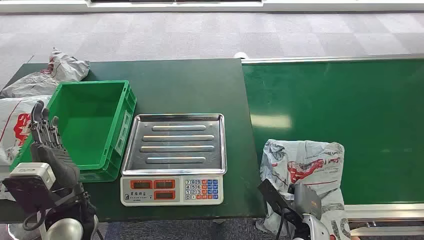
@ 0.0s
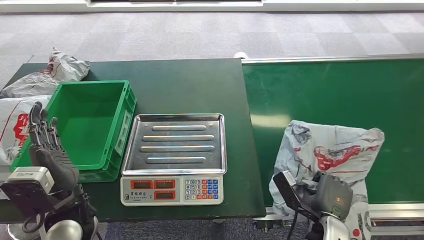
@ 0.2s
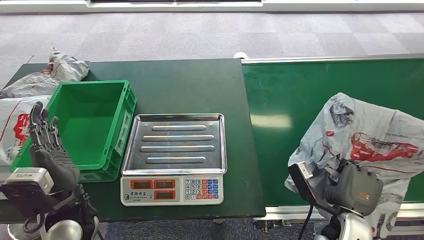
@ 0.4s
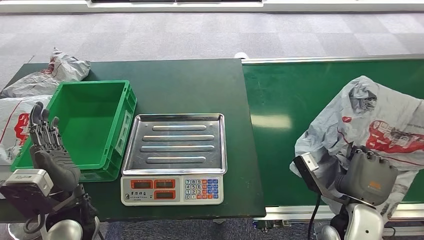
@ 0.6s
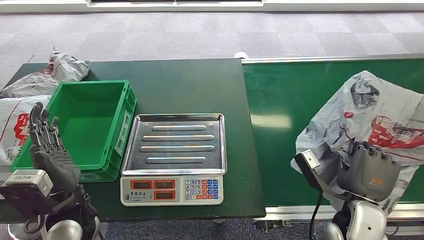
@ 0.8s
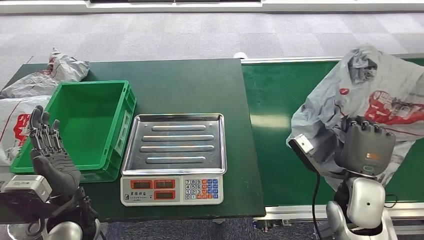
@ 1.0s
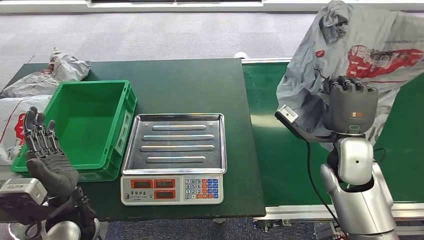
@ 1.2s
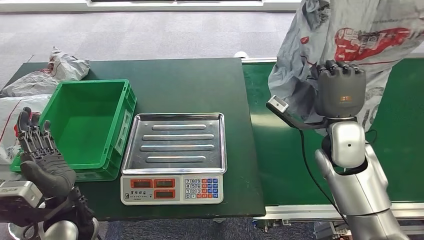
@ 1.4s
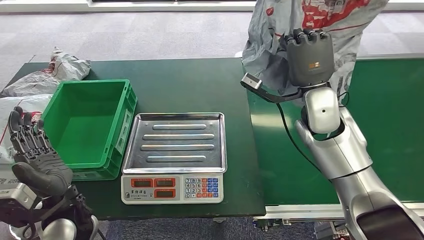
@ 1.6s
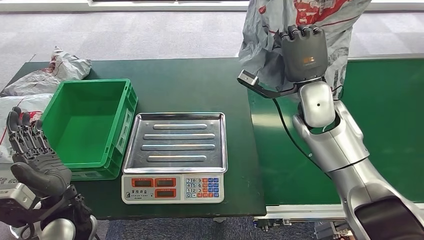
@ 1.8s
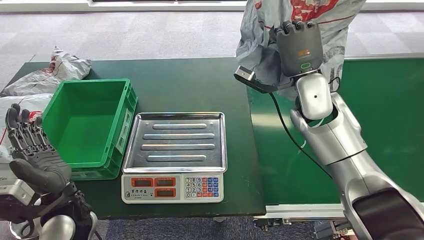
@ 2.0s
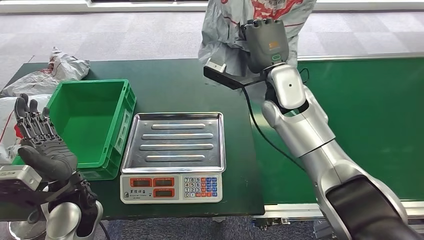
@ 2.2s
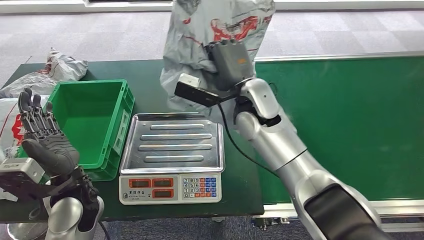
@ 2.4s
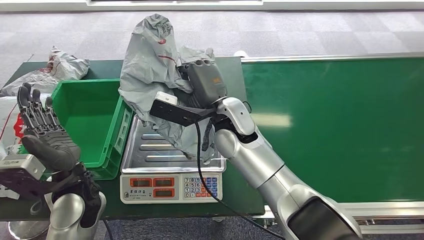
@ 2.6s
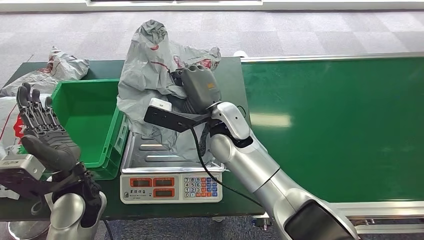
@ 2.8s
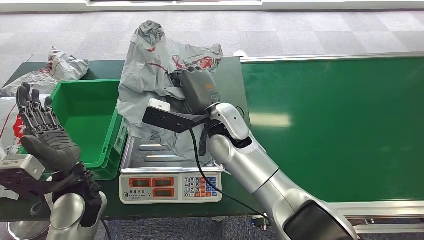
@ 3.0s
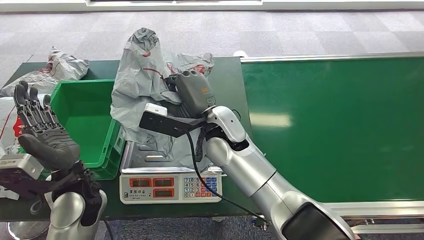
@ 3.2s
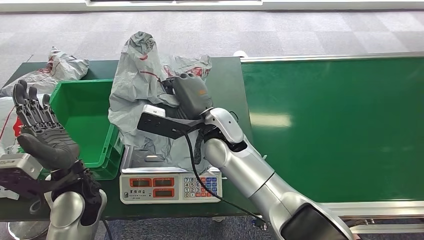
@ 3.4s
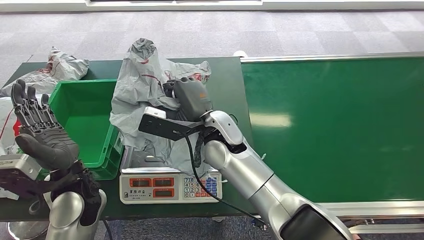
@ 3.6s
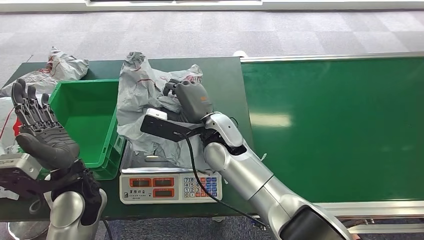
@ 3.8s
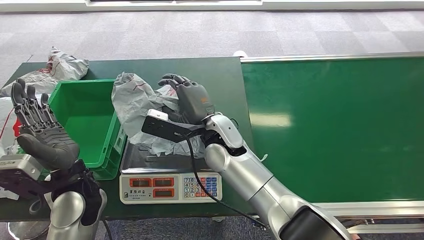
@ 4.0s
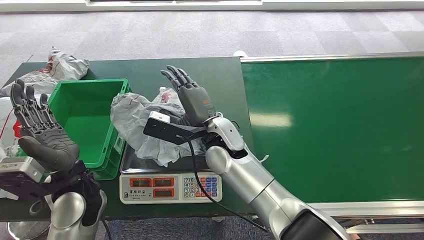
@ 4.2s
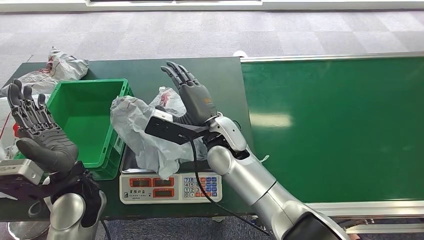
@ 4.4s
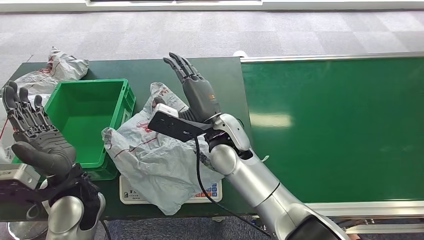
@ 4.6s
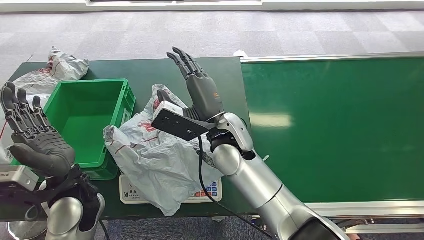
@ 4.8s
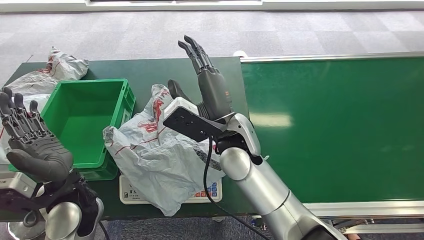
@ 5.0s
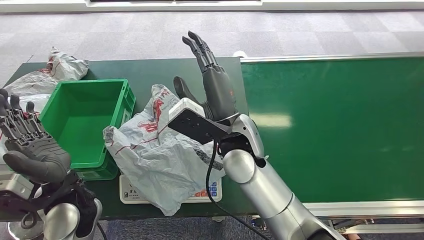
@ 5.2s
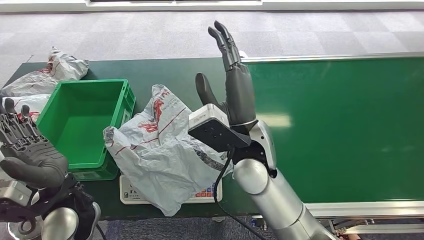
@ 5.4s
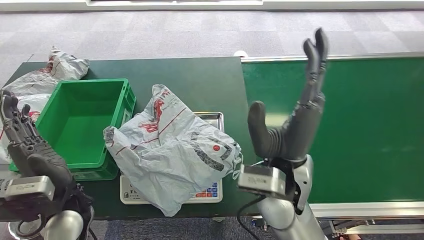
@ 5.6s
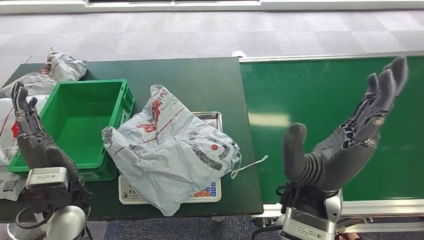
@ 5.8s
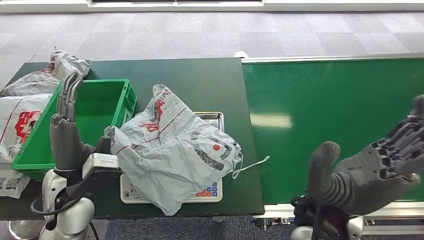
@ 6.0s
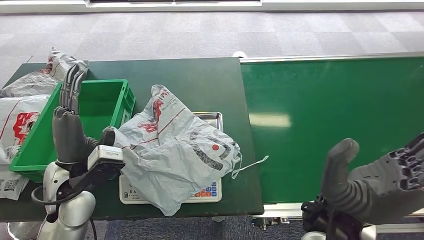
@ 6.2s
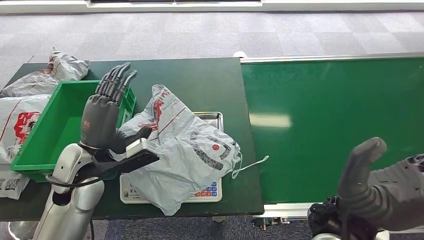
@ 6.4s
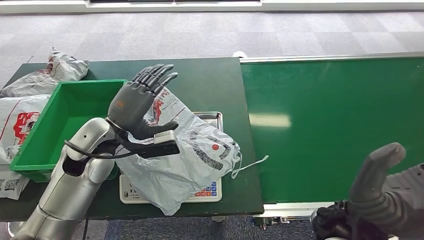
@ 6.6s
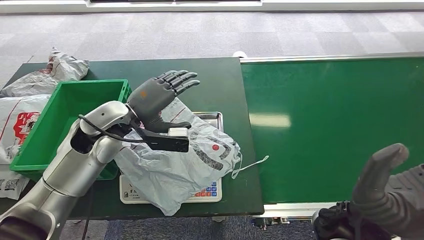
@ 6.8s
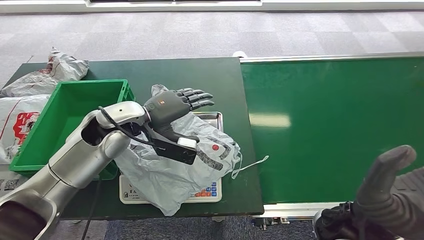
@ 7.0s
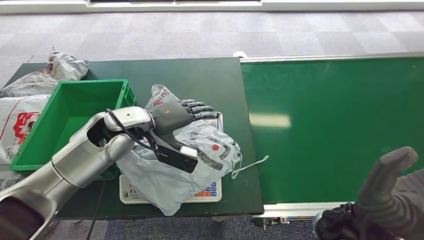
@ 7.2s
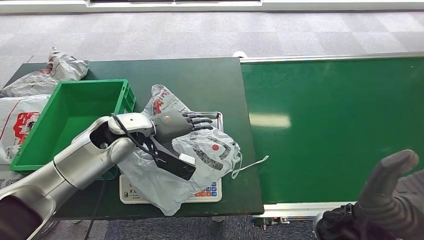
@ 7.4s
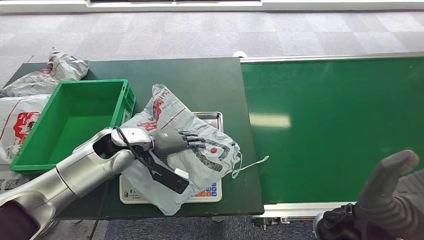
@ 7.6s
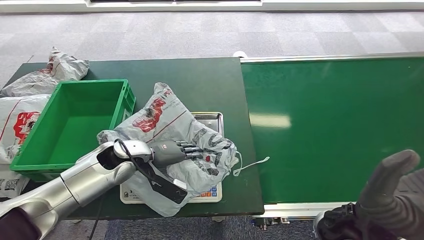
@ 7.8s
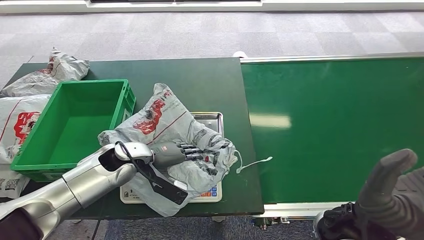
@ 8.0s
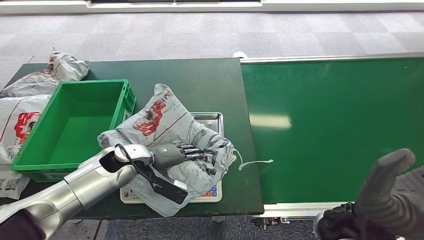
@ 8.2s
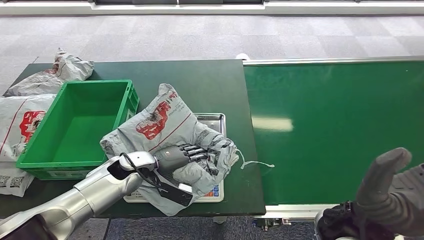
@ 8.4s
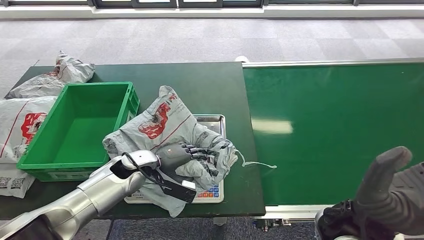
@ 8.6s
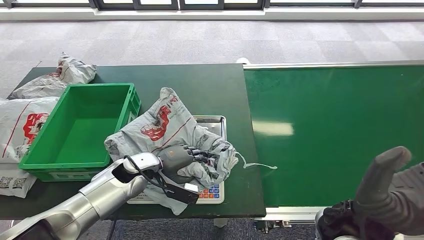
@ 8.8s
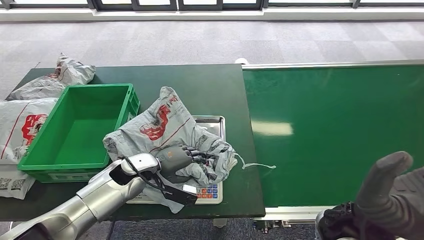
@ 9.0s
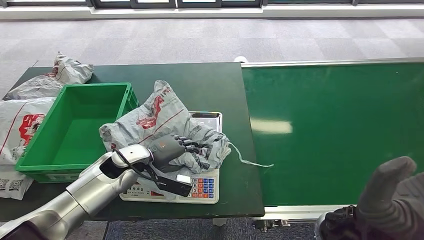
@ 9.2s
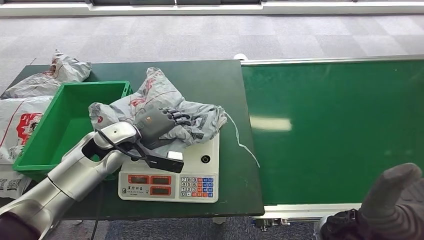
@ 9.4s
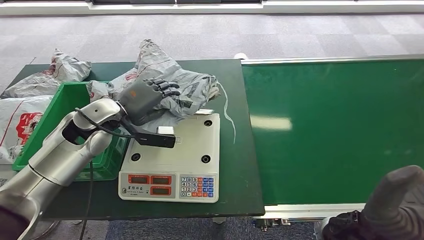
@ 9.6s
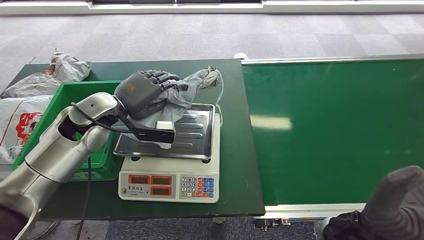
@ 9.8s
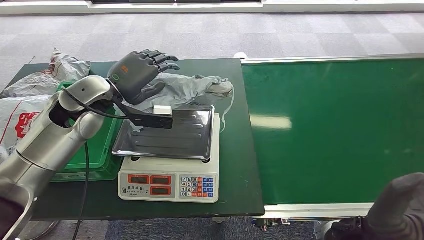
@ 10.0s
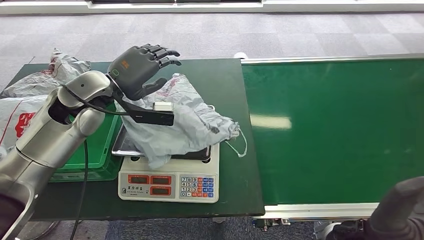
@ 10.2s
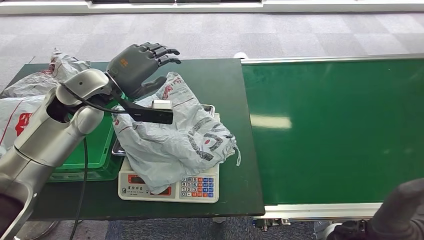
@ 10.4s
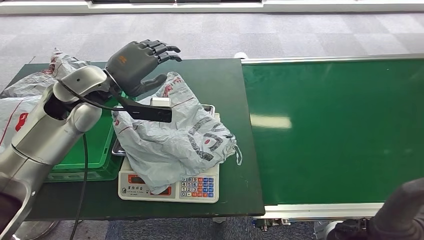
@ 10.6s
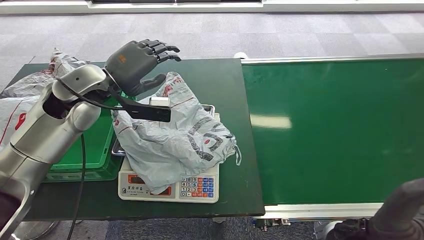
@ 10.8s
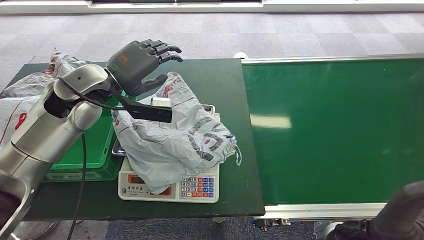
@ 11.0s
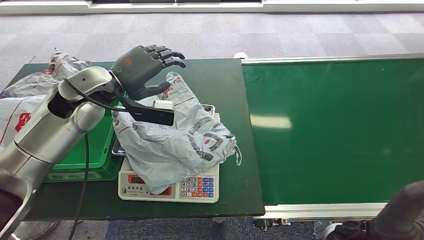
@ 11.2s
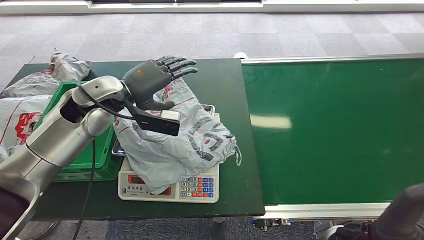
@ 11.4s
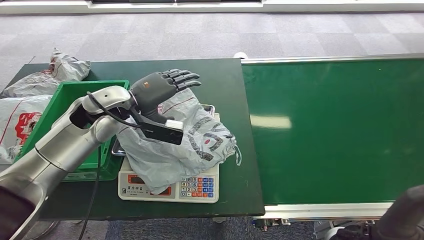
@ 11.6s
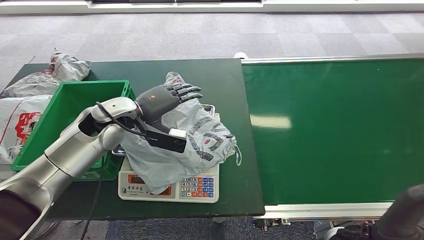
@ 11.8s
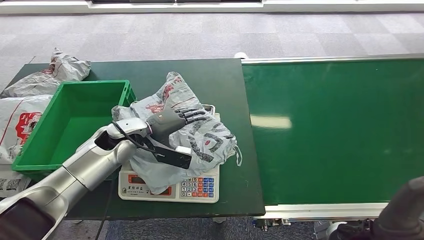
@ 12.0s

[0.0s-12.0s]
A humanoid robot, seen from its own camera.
Step, 0.0s to 1.0s: Pick up the package from the conveyor belt.
Step, 1.2s to 5.8s: Place the package onto the inbound machine.
3.0s to 4.4s: The hands make only small movements.
6.0s to 7.6s: The right hand moves about 5 cm, while the left hand heads forward and to the right, covering roughly 15 cm.
10.4s to 12.0s: The left hand is displaced downward by about 15 cm.

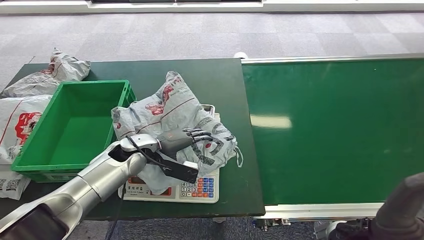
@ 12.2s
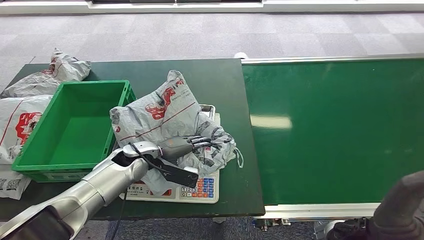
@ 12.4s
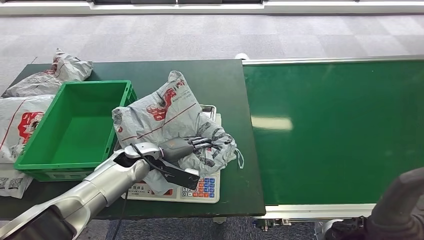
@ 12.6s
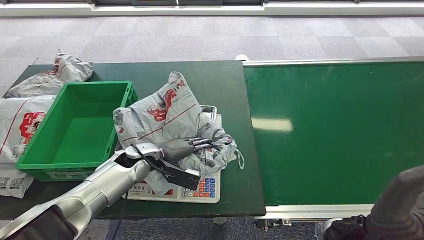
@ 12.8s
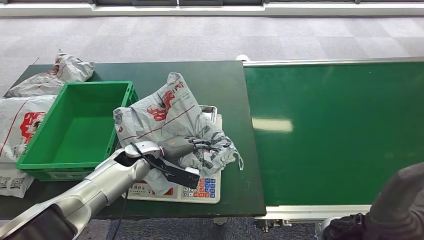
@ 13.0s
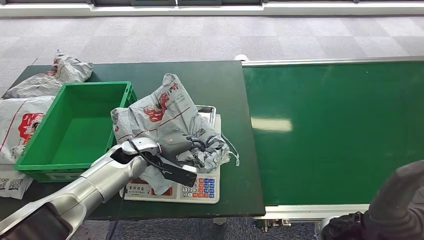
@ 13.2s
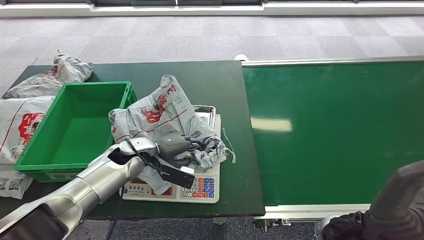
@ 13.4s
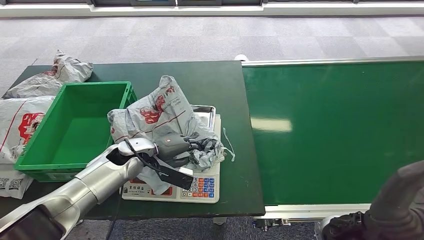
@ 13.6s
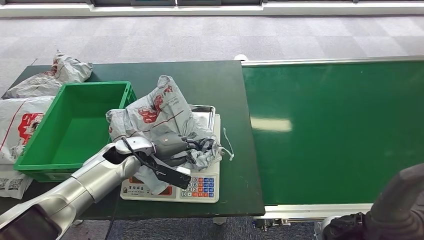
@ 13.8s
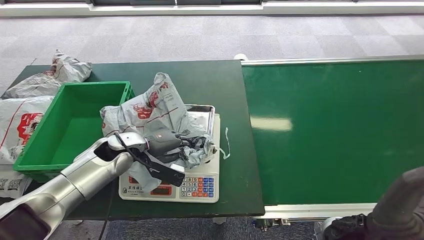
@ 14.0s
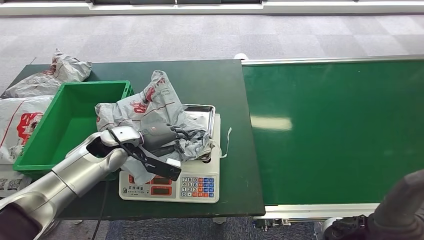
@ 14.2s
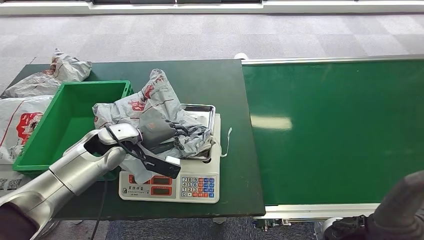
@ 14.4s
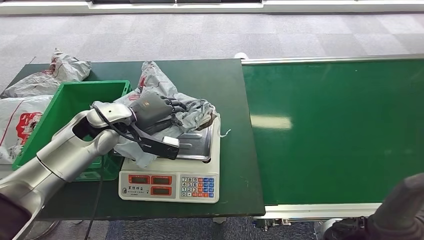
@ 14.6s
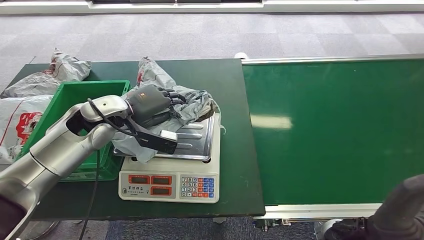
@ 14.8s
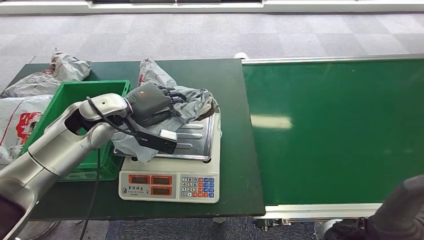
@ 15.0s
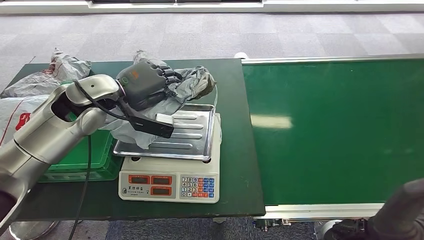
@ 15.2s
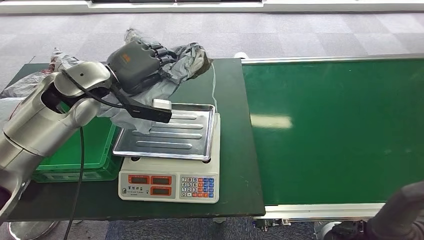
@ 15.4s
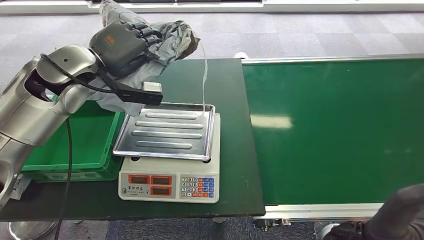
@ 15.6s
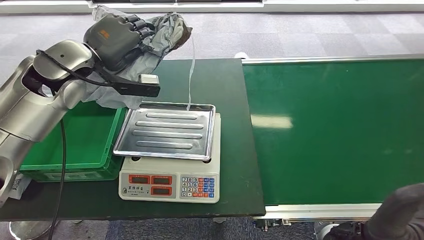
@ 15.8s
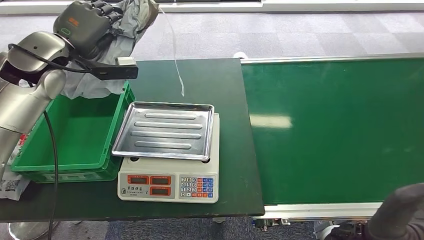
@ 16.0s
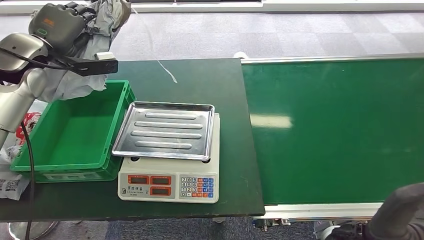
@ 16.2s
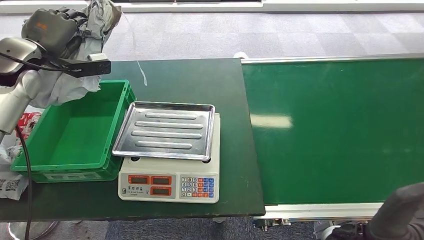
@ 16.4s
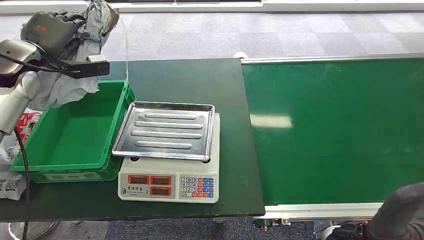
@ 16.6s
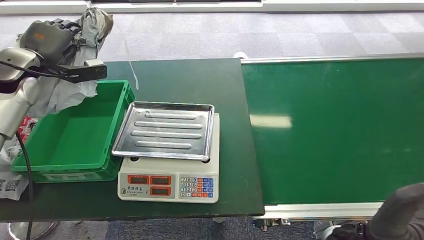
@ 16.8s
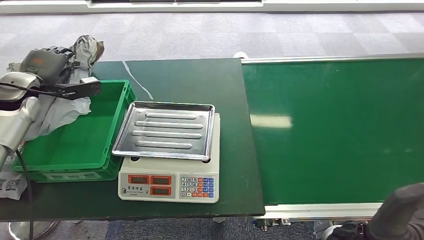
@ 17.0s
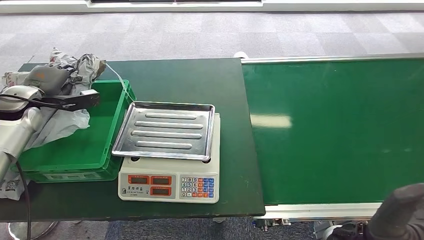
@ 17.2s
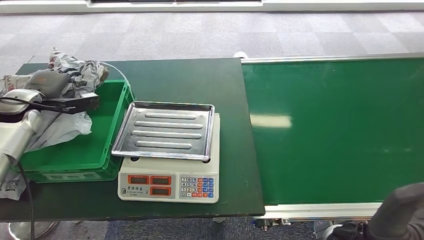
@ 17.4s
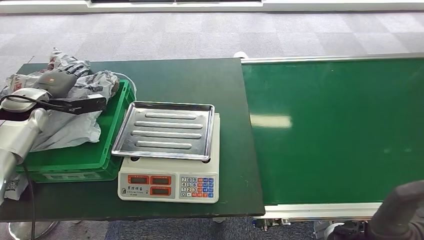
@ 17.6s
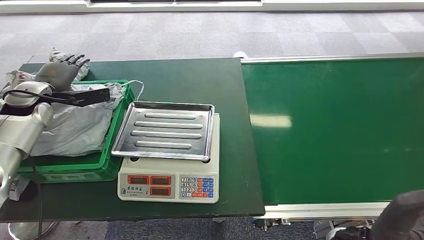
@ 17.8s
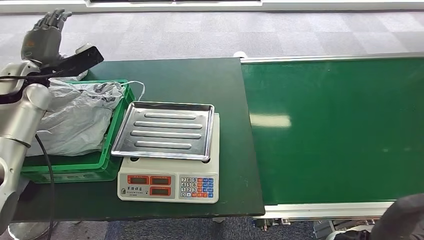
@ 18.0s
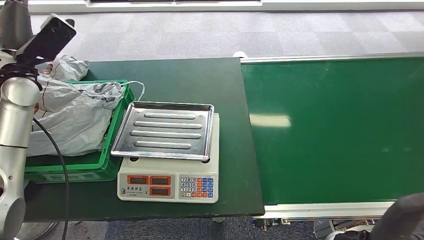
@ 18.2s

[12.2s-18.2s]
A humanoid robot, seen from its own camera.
Step, 12.2s to 15.6s: Pick up the package from the inbound machine.
Step, 15.8s to 18.2s: Place the package into the parcel locker.
